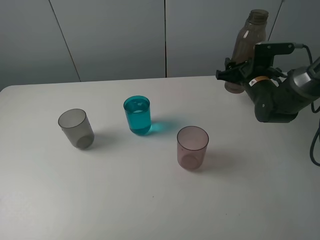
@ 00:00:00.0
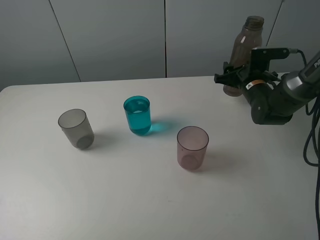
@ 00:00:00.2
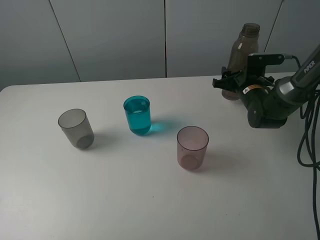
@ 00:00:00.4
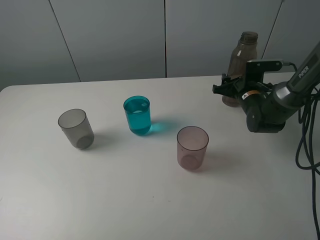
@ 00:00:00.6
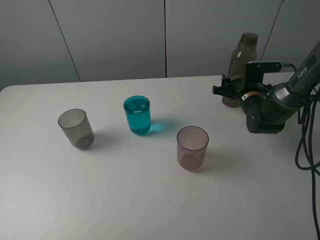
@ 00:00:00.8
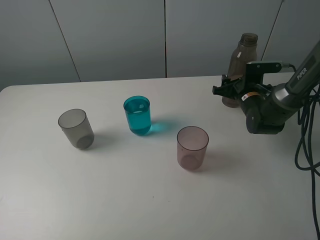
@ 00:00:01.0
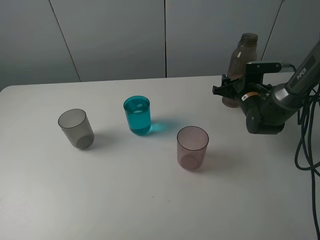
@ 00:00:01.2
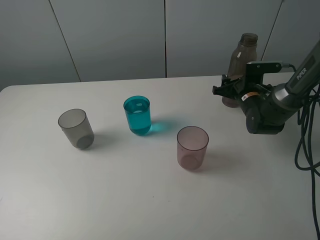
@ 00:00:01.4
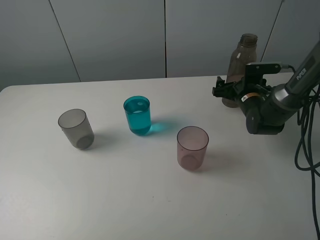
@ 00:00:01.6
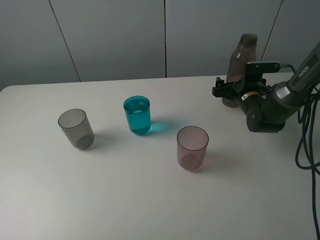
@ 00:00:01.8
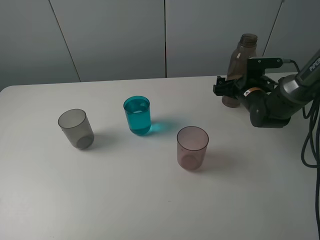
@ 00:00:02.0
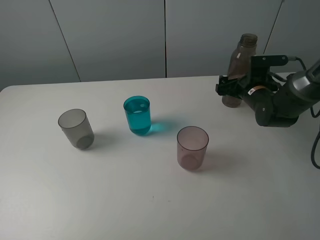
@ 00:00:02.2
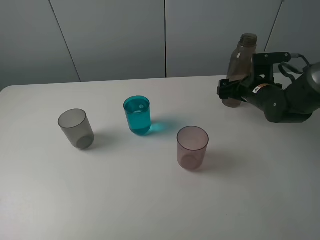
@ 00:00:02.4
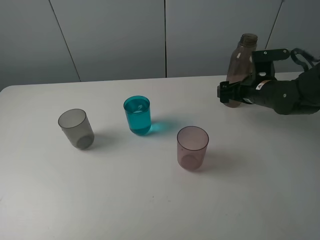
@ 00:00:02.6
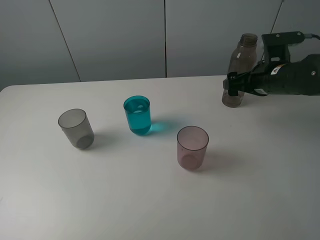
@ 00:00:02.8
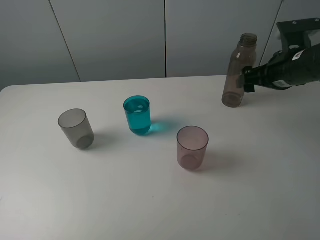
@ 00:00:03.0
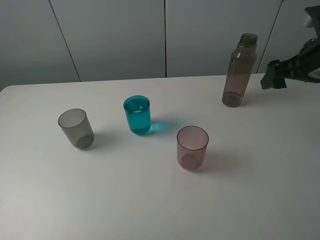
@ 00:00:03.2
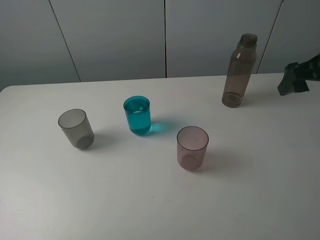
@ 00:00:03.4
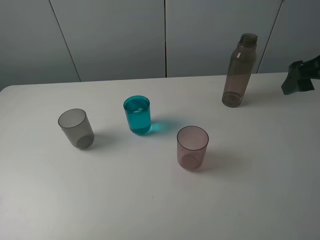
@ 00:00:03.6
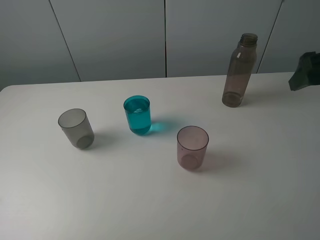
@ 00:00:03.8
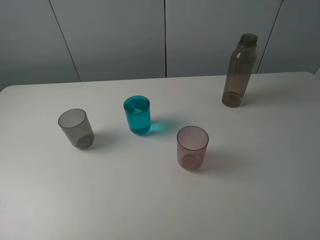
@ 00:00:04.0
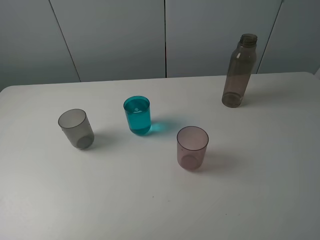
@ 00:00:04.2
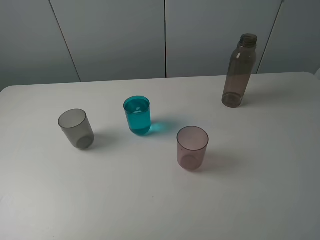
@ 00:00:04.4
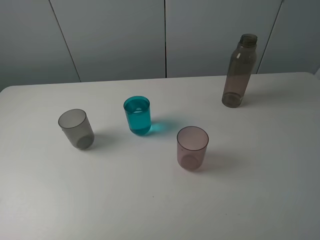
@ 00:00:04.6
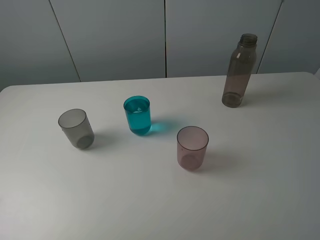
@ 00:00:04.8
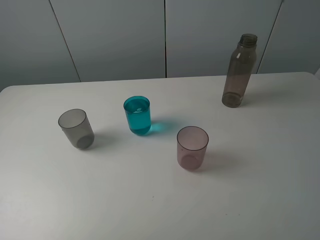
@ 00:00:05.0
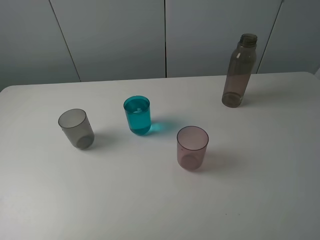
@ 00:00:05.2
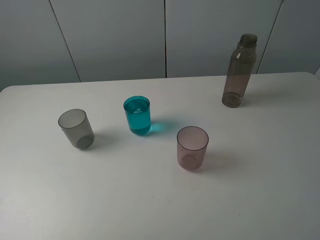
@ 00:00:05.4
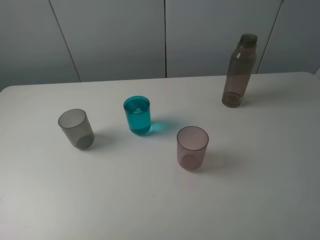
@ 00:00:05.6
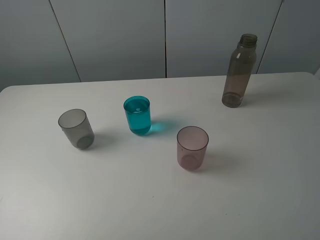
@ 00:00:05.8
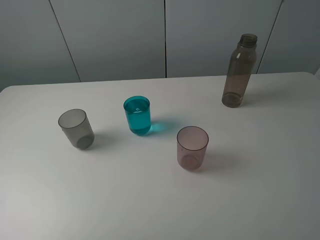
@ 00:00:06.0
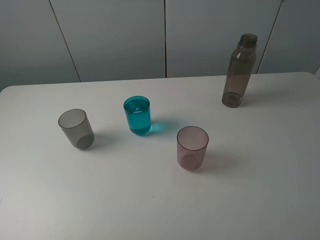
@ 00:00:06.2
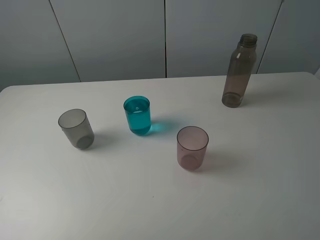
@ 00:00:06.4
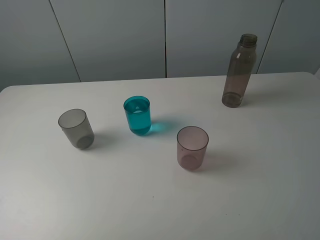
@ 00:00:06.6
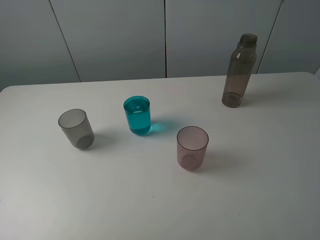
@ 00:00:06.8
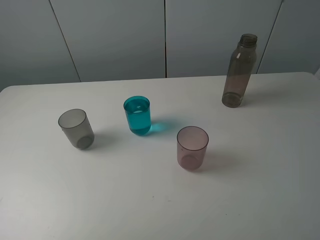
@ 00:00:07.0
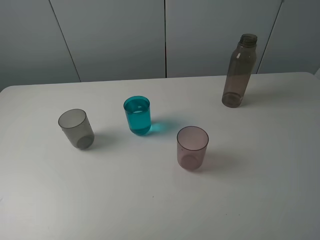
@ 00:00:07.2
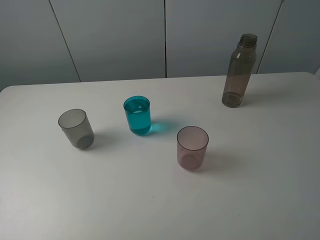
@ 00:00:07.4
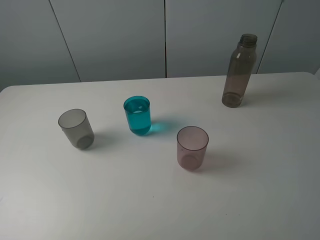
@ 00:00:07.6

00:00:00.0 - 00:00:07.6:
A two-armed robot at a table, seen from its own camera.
Task of the whole recording: pick up the bottle filled with water and pour water into the middle cup of the three cups.
Step, 00:00:00.0 - 00:00:03.2: Place the transparent bottle with the right gripper.
00:00:00.0 - 00:00:01.6: The right gripper shifts some 5 cm downward, and opens up.
00:00:01.6 - 00:00:03.0: The right gripper heads upward and backward, covering about 15 cm.
00:00:03.0 - 00:00:04.6: The right gripper heads backward and upward, covering approximately 30 cm.
00:00:06.0 - 00:00:07.6: Both grippers stay about where they are.
